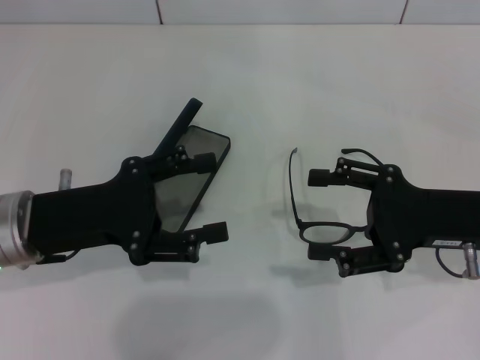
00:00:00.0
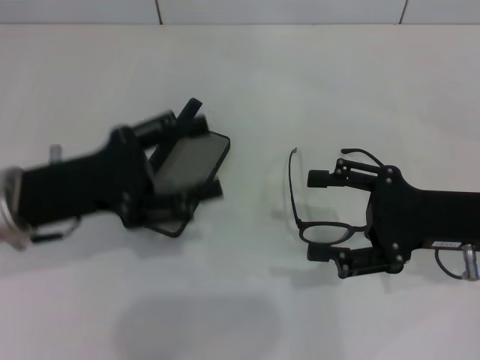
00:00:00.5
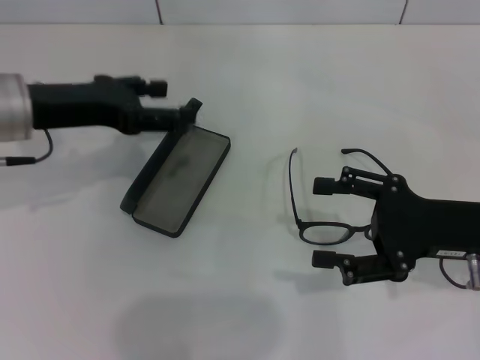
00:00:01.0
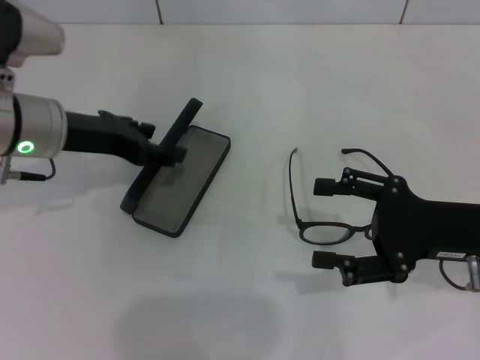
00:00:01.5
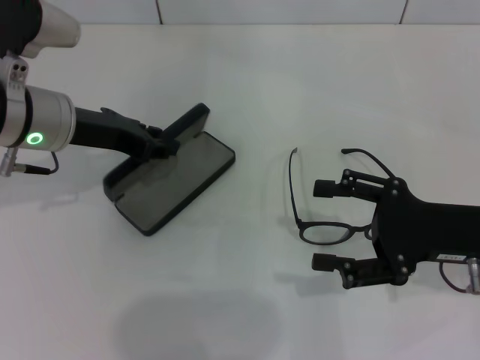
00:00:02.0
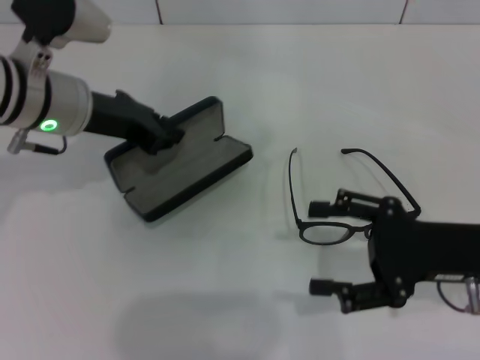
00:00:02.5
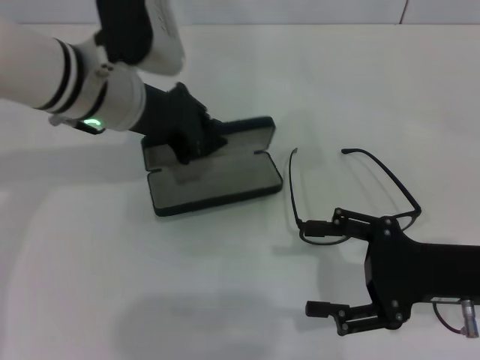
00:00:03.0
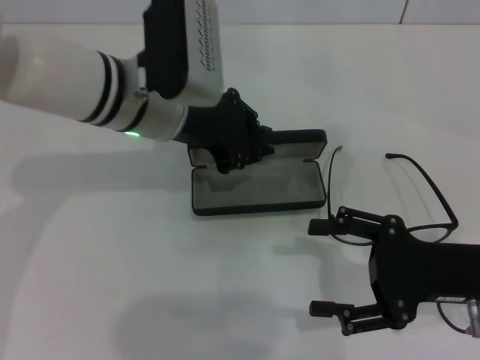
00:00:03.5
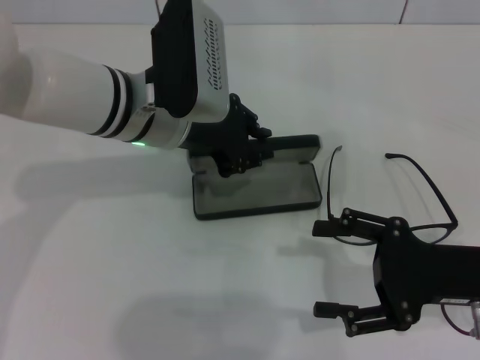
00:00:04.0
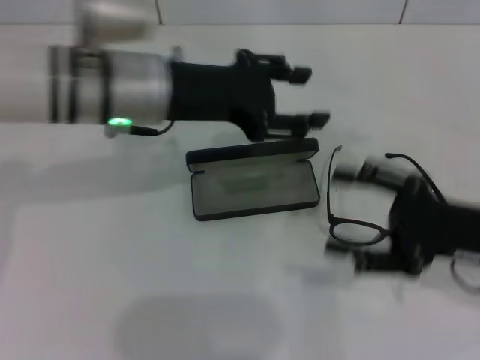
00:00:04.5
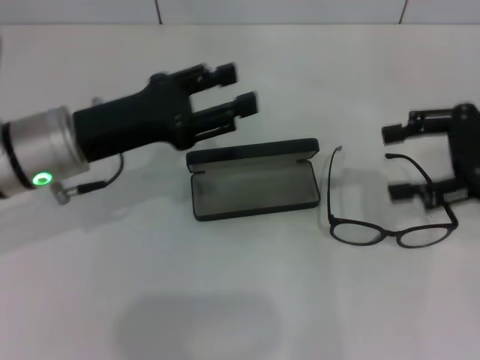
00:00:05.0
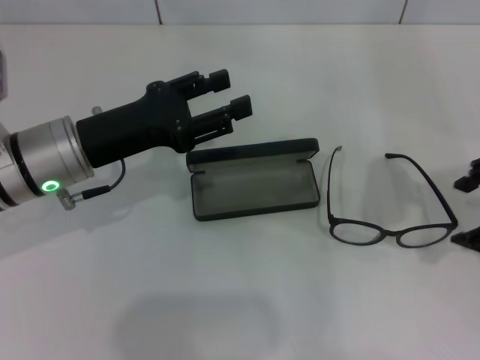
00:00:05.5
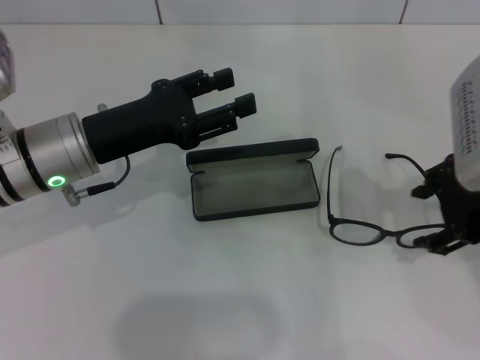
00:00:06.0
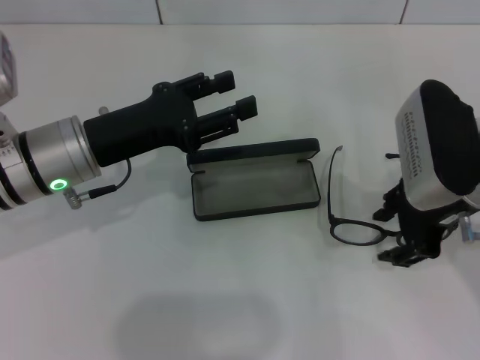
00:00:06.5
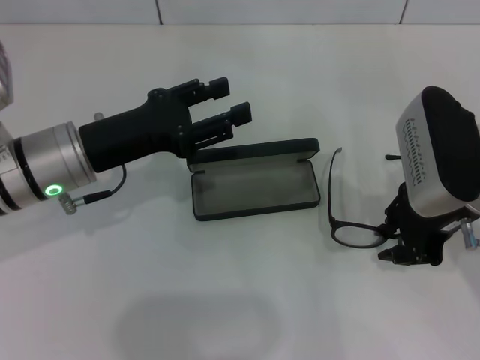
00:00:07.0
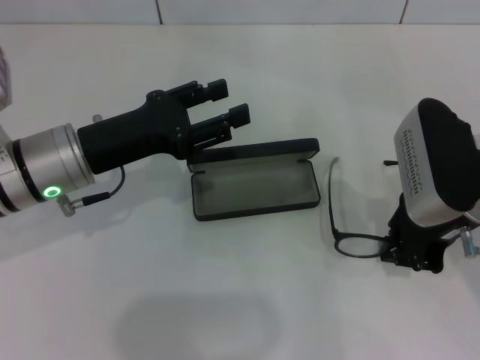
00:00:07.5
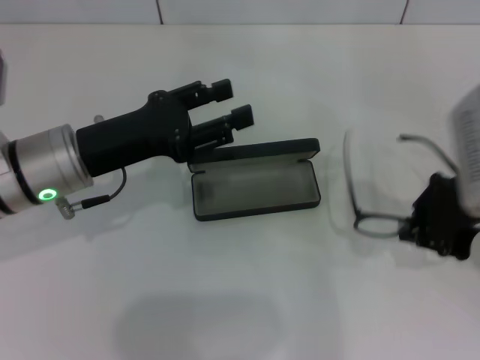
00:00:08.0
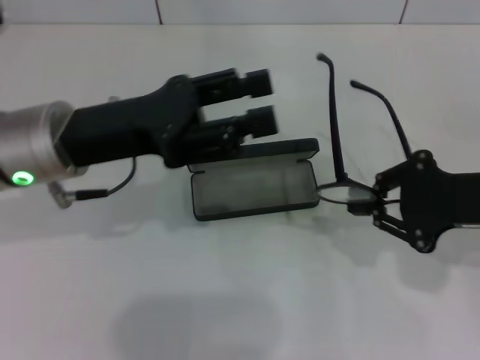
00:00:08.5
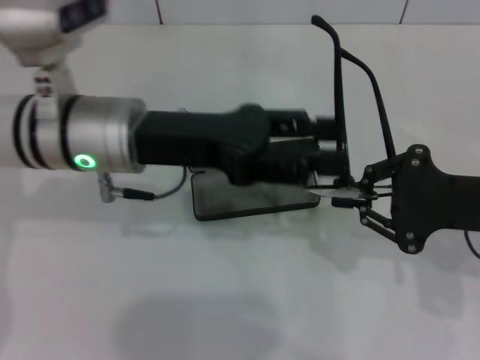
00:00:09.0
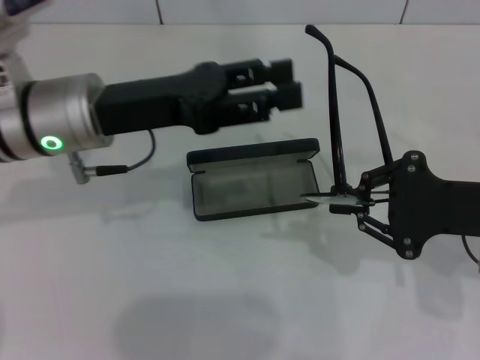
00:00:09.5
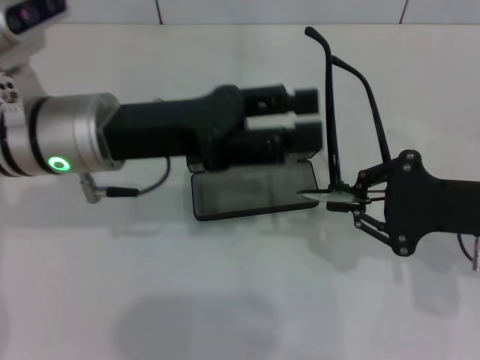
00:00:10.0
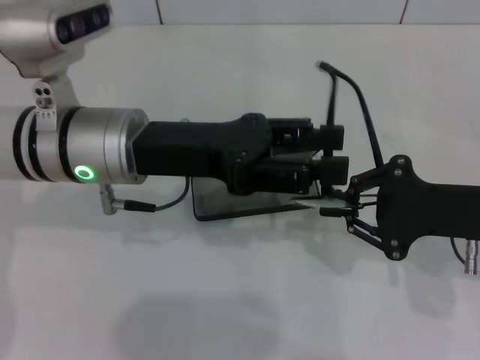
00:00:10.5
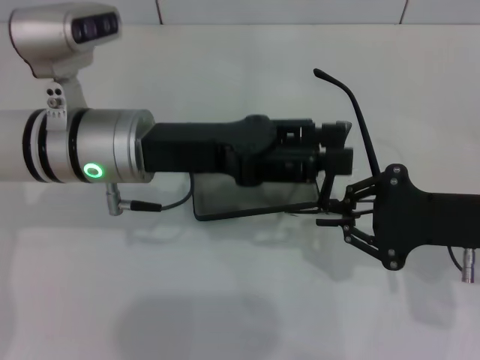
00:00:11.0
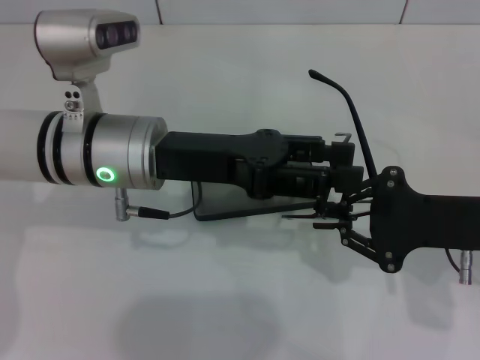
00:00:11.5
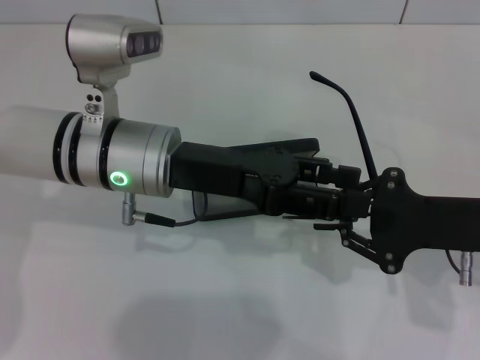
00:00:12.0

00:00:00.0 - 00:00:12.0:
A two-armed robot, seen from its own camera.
Step, 00:00:00.0 - 00:00:02.0: Grab the glasses case with your left hand.
Step, 00:00:02.5 - 00:00:04.0: Place the glasses case in the center of the table with your left hand.
Step, 00:00:04.5 - 00:00:07.5: Grab the eyeglass frame with your right hand.
00:00:00.0 - 00:00:02.0: The left gripper goes about 10 cm forward, and closes.
00:00:02.0 - 00:00:04.0: The left gripper is displaced to the right by about 10 cm, and closes.
00:00:04.0 - 00:00:06.0: The left gripper is displaced to the left by approximately 10 cm, and opens up. Meanwhile the right gripper moves upward and forward, about 15 cm.
00:00:06.0 - 00:00:08.0: The right gripper closes its fingers.
00:00:08.0 - 00:00:10.0: The left gripper moves roughly 5 cm, while the right gripper moves approximately 5 cm.

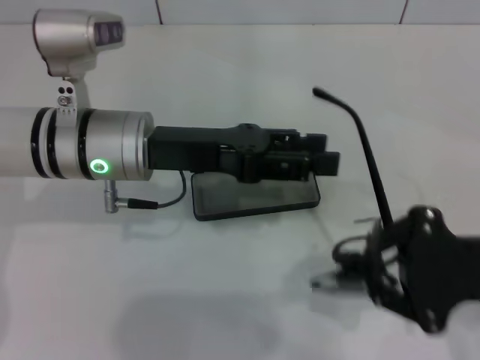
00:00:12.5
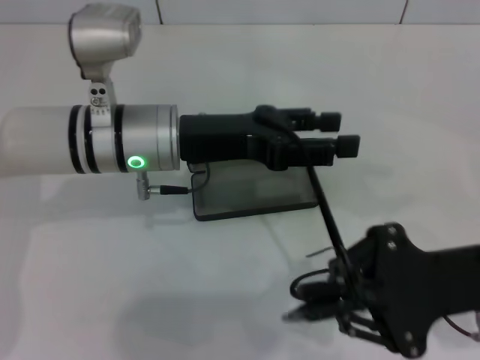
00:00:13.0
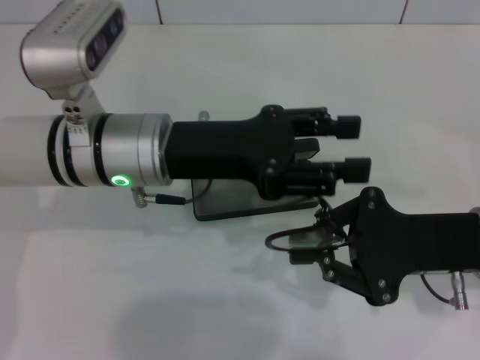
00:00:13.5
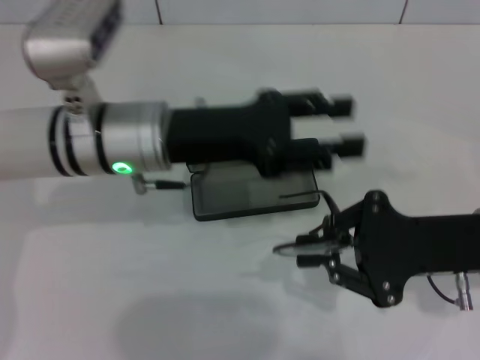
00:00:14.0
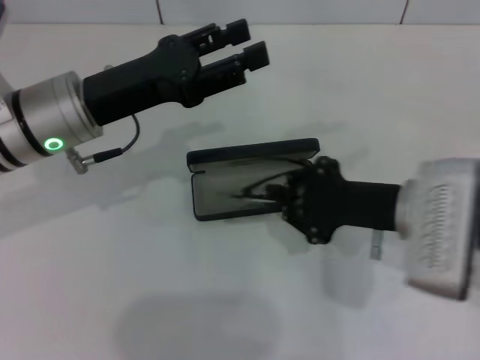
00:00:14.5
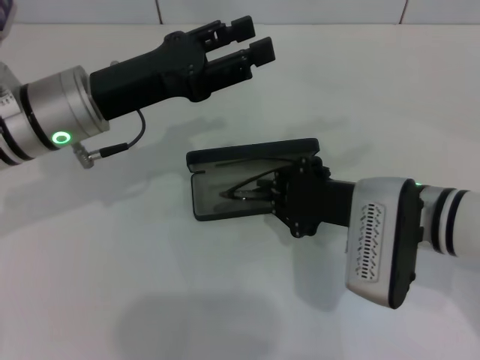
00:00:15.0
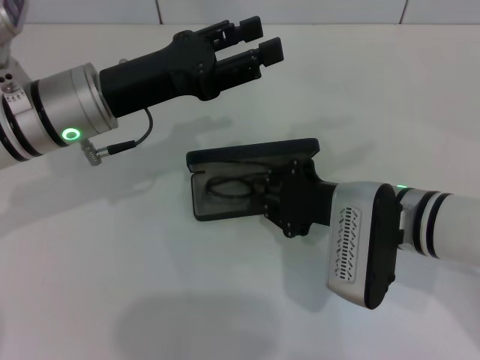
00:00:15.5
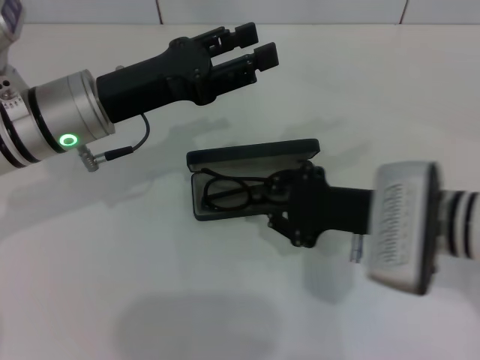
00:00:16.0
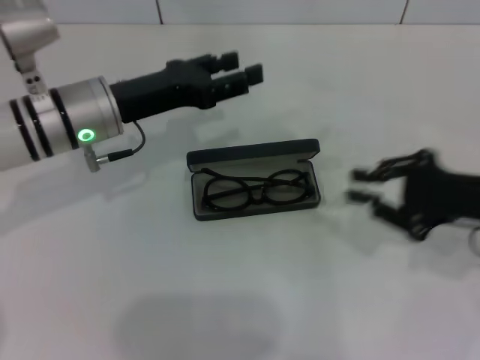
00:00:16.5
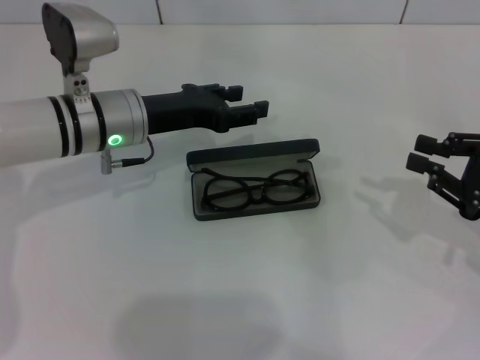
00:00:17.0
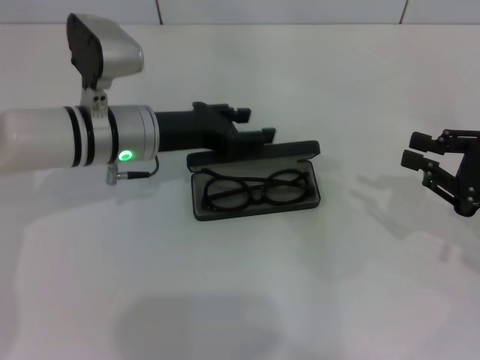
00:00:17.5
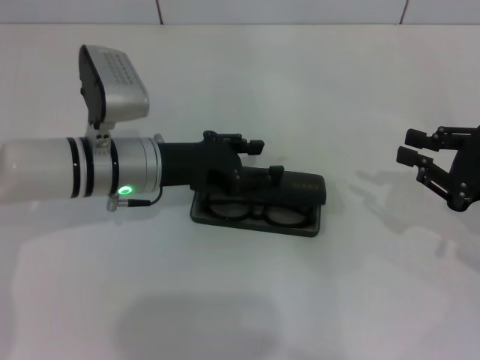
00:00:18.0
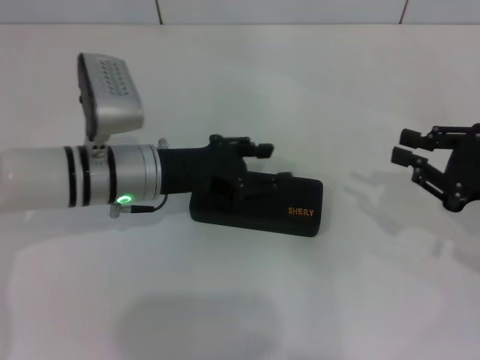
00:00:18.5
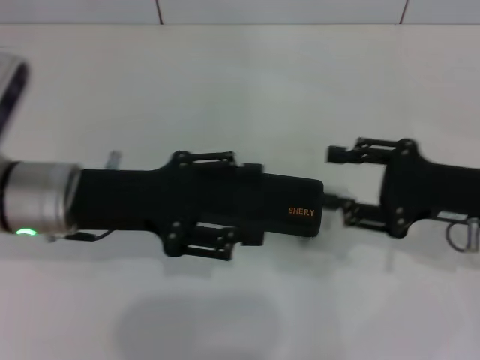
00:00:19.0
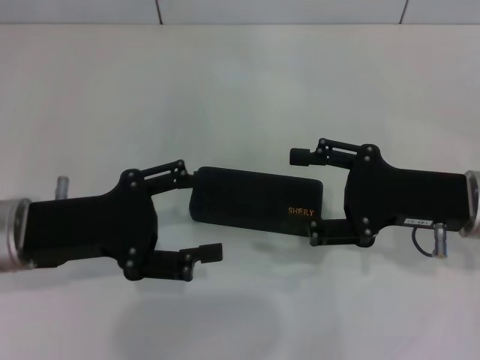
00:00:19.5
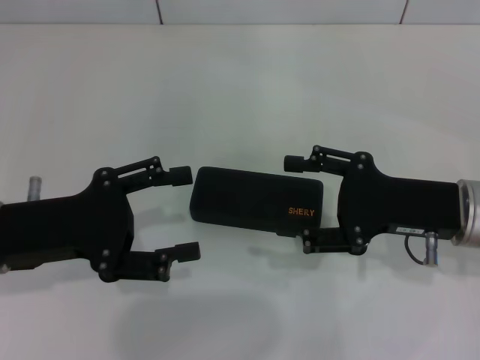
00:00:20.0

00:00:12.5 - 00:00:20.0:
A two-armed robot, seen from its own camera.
Step, 00:00:14.0 - 00:00:15.5: Put the glasses into the case with your right hand.
Step, 00:00:16.0 - 00:00:18.0: Close the glasses case with your left hand.
00:00:12.5 - 00:00:14.5: The right gripper travels to the left by about 10 cm.
00:00:14.5 - 00:00:16.5: The right gripper heads to the right, covering approximately 10 cm.
00:00:16.5 - 00:00:18.0: The left gripper moves approximately 5 cm.
00:00:18.0 - 00:00:20.0: The left gripper goes about 15 cm backward and to the left, and opens its fingers. Meanwhile the right gripper moves to the left, some 10 cm, and opens.
